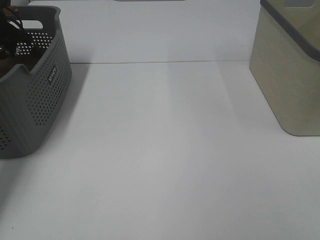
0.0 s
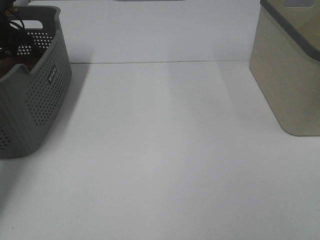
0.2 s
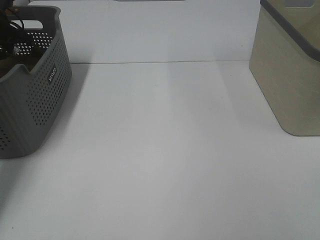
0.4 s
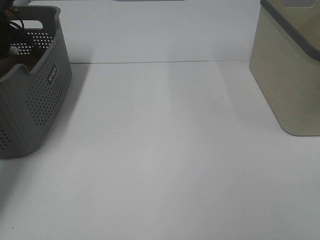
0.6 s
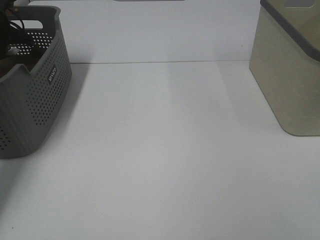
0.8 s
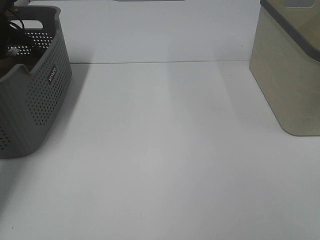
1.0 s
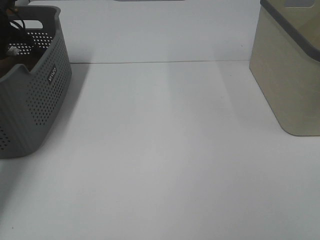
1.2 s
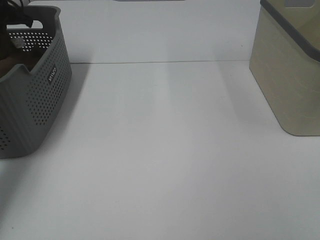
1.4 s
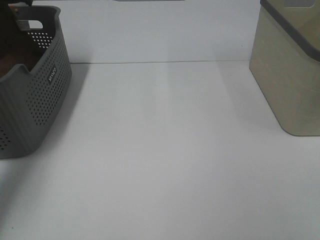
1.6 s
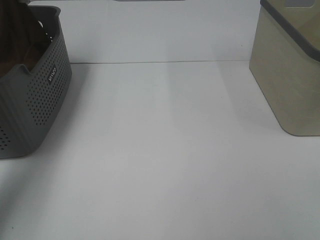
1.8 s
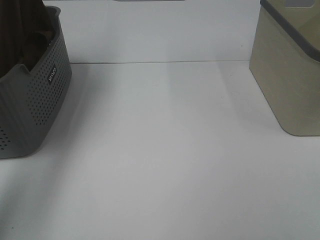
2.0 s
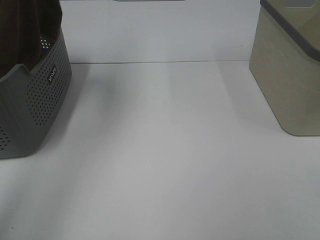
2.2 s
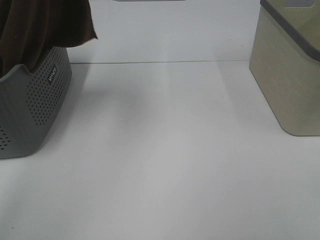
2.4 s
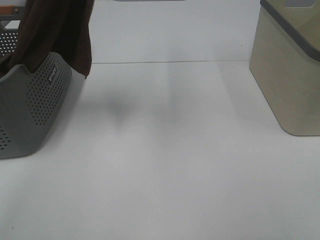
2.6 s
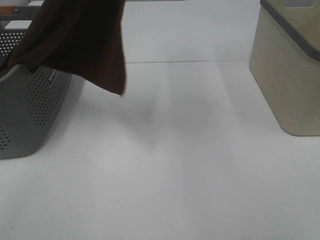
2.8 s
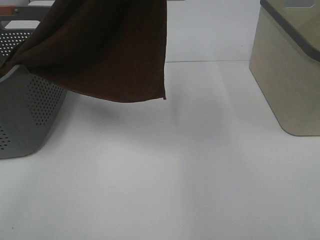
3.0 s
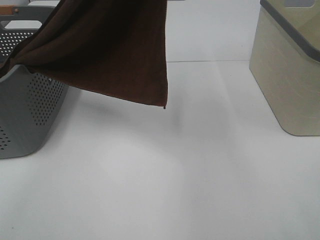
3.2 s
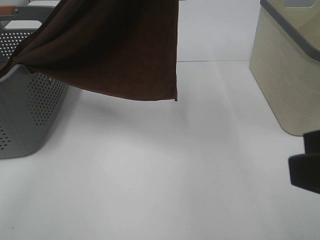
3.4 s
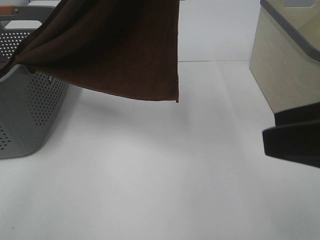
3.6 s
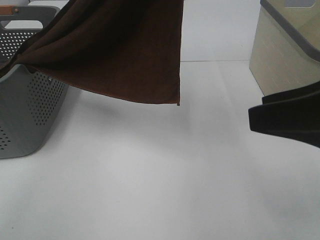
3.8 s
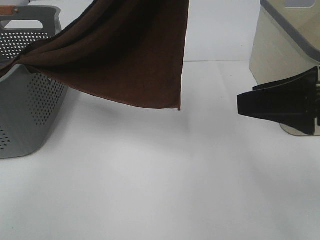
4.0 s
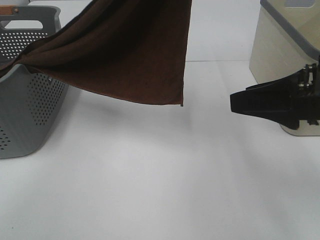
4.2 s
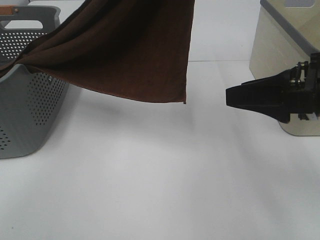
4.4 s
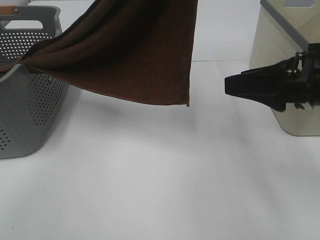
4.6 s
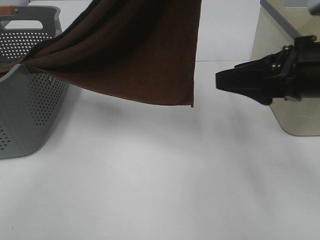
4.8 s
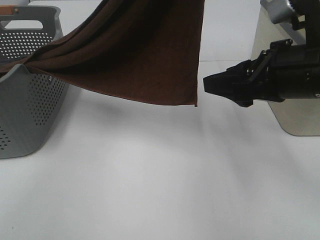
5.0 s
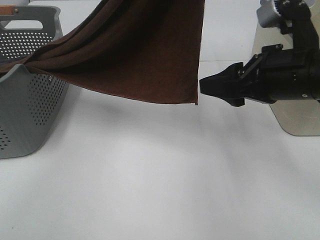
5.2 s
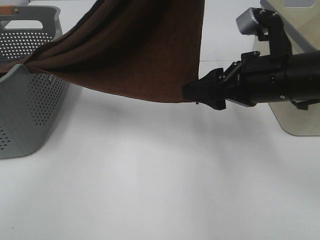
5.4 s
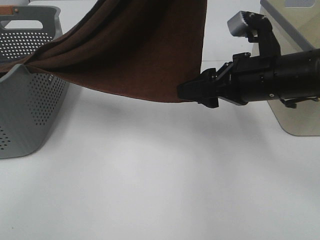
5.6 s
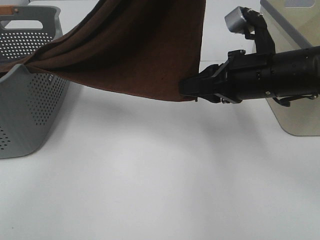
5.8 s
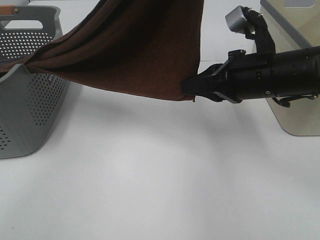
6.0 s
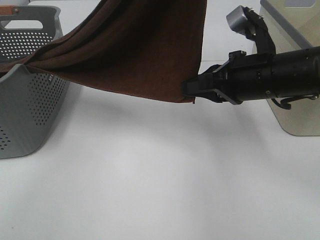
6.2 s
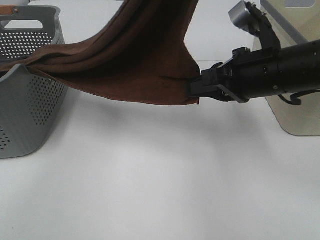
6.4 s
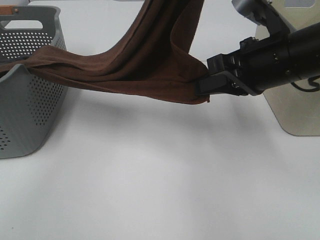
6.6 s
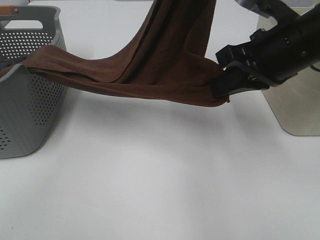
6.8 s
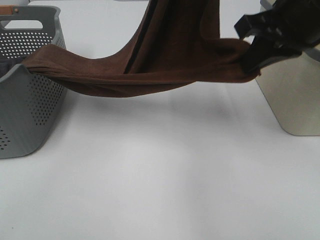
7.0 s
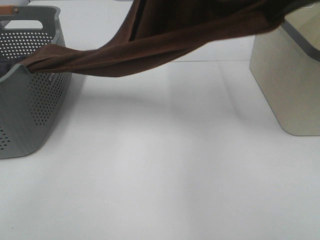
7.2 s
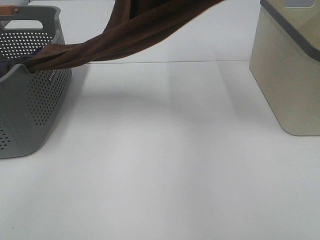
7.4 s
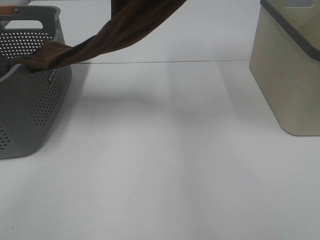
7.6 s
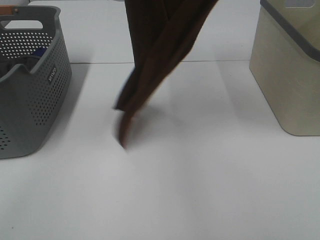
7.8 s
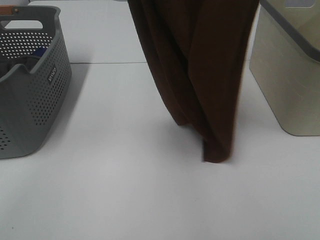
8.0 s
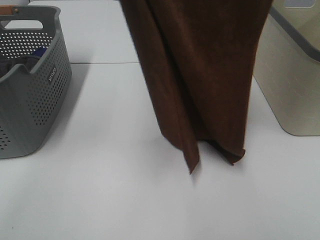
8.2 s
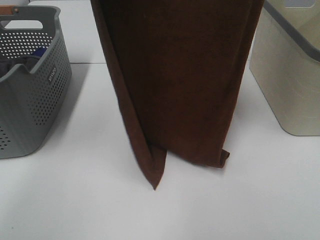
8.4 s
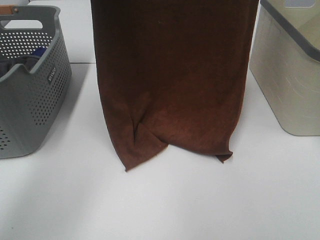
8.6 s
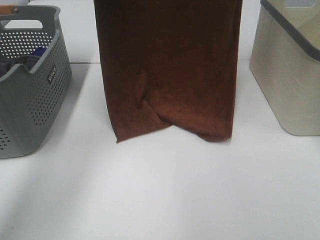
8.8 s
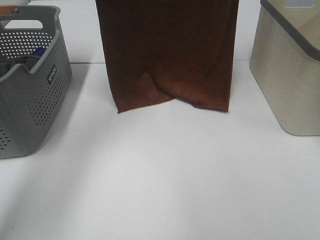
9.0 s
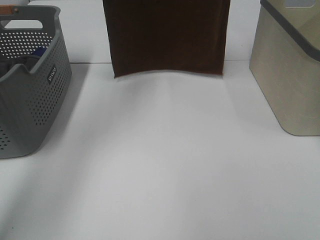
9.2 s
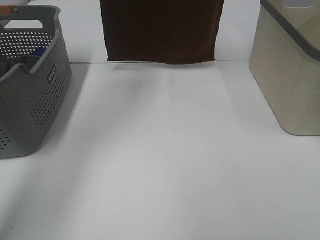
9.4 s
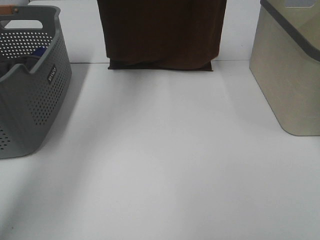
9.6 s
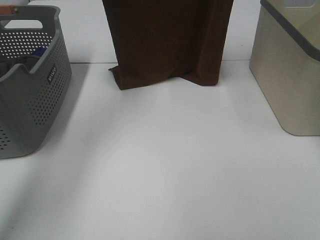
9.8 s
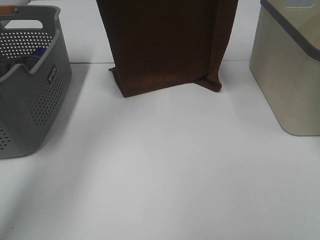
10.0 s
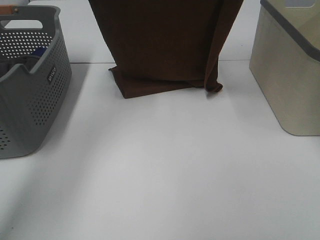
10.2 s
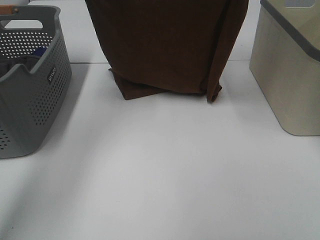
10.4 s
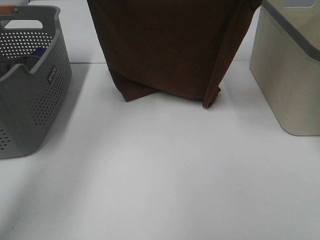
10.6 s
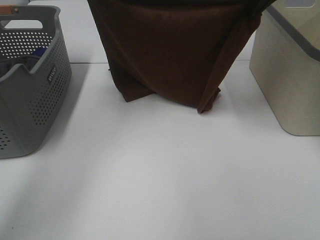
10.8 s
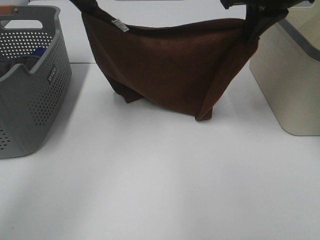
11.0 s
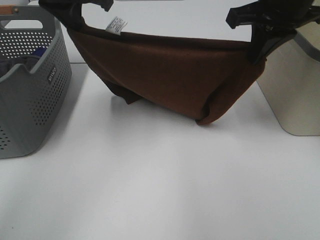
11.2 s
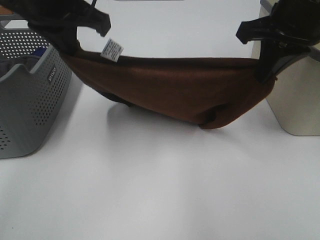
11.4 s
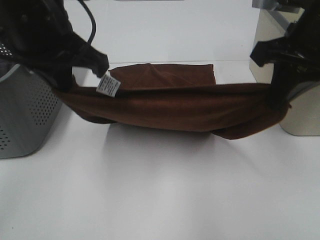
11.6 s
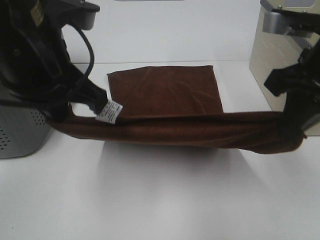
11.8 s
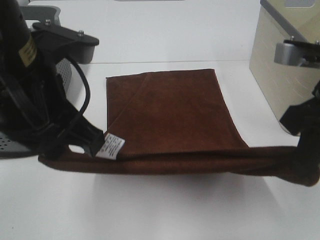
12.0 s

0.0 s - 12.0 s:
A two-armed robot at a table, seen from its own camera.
Task of the whole recording: Remove the towel and place it.
Step, 2.0 s - 5.4 s: Right hand: grab a corner of the brown towel and straighten it.
Step, 5.6 s - 9.4 s: Left hand: spread the brown towel flat on the table.
Step, 5.6 s - 9.4 s: Right hand: spread the brown towel flat on the table.
0.0 s - 1.6 s: The left gripper shifts some 10 cm upward, and closes its fingers.
1.6 s - 3.0 s: The left gripper heads to the right, backward and upward, covering some 40 cm.
3.0 s - 4.4 s: The right gripper goes roughly 20 cm forward.
4.4 s - 6.0 s: The right gripper heads forward and to the left, covering some 10 cm, and closes.
6.0 s - 7.6 s: The left gripper is displaced upward and to the left by roughly 10 cm. Meanwhile the right gripper moves upward, some 30 cm.
7.6 s - 9.0 s: The right gripper goes about 15 cm forward, while the left gripper is displaced forward, to the left and downward by some 25 cm.
9.0 s - 10.4 s: Both grippers travel together downward, about 10 cm.
10.4 s - 12.0 s: The right gripper shifts roughly 25 cm backward and downward. Meanwhile the left gripper shifts some 25 cm backward.

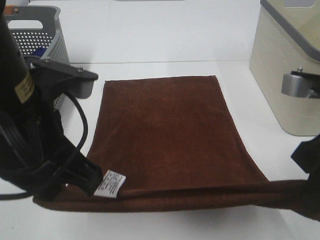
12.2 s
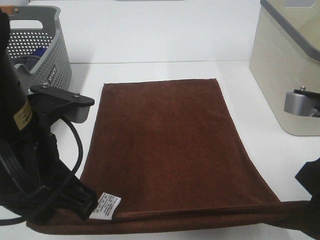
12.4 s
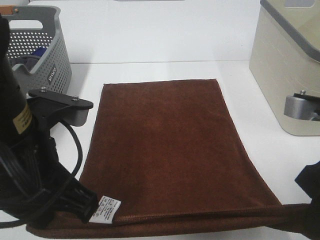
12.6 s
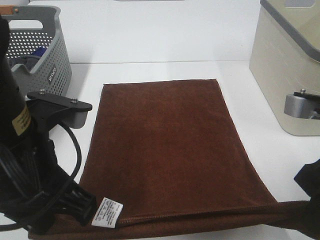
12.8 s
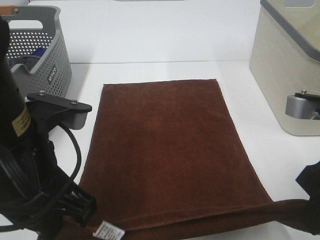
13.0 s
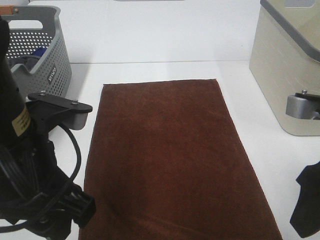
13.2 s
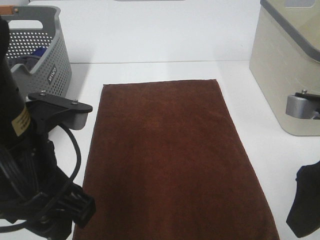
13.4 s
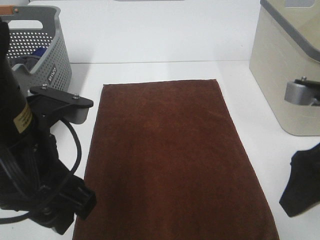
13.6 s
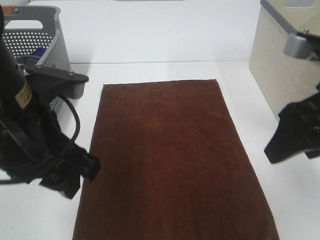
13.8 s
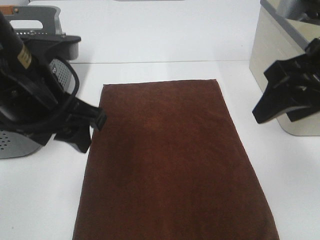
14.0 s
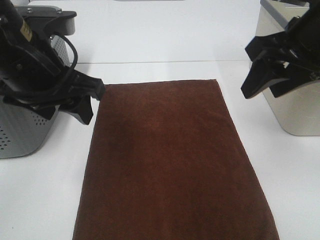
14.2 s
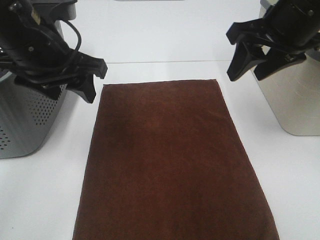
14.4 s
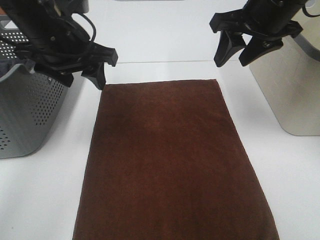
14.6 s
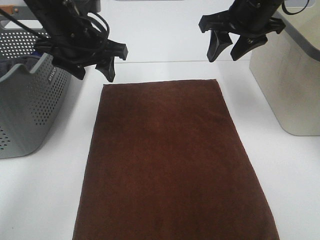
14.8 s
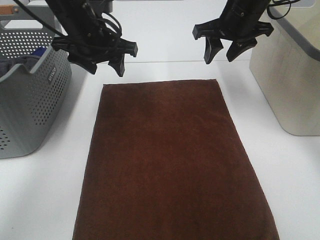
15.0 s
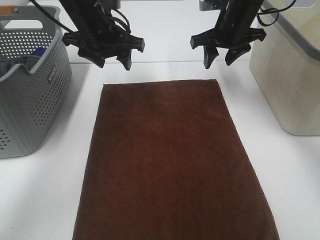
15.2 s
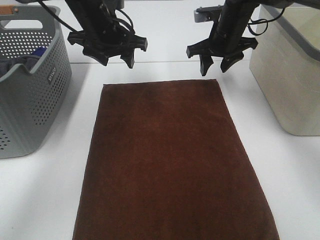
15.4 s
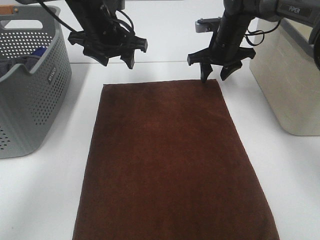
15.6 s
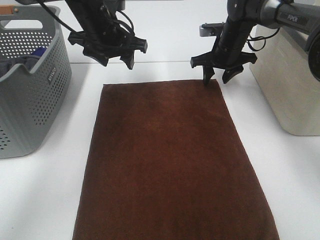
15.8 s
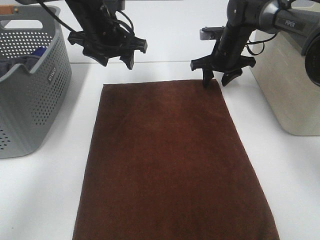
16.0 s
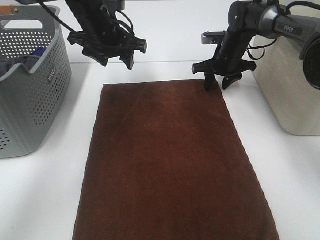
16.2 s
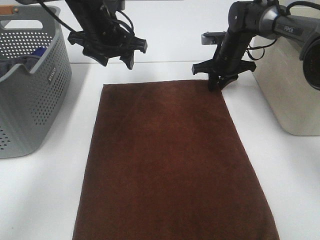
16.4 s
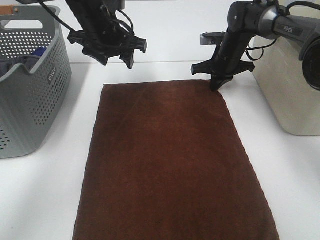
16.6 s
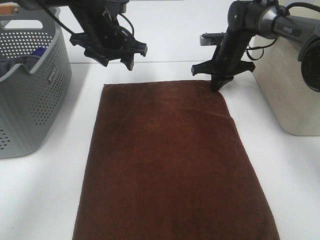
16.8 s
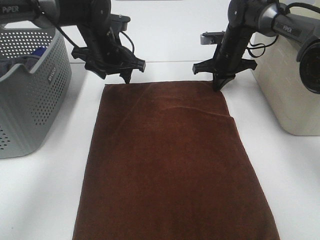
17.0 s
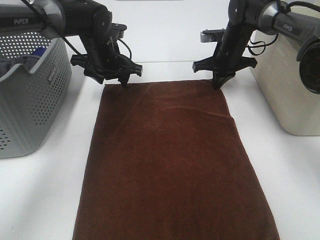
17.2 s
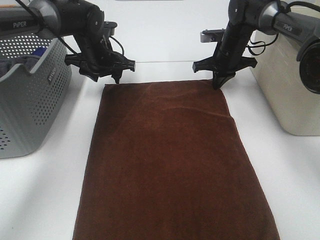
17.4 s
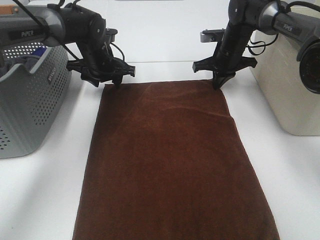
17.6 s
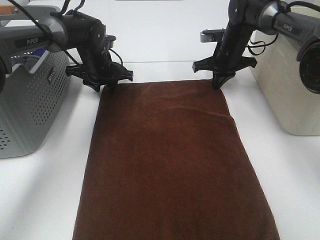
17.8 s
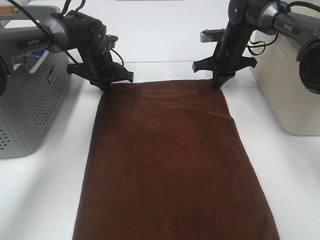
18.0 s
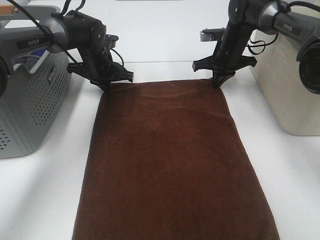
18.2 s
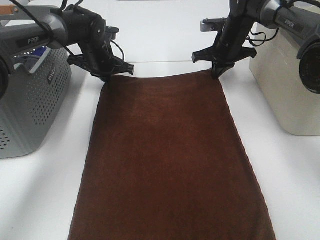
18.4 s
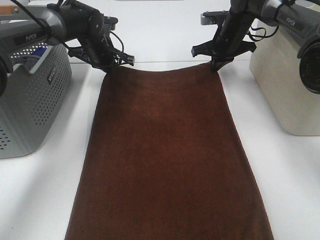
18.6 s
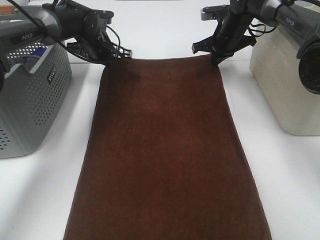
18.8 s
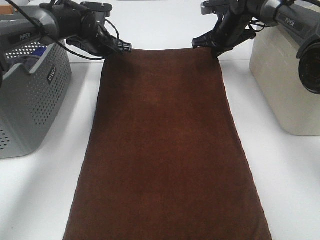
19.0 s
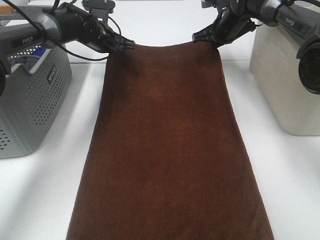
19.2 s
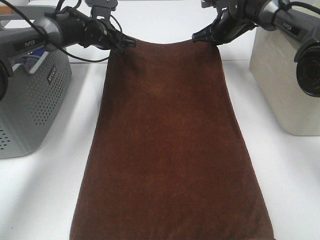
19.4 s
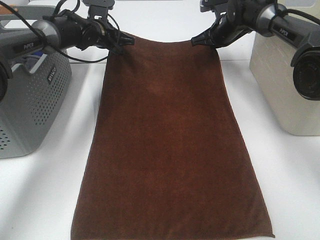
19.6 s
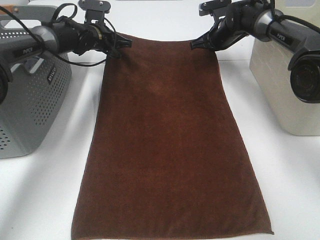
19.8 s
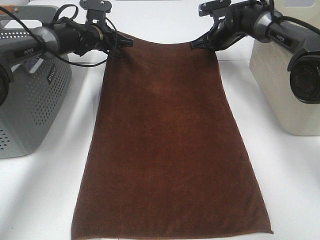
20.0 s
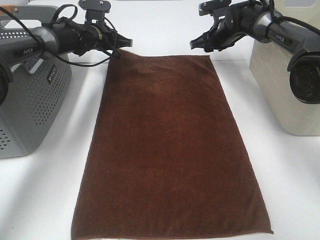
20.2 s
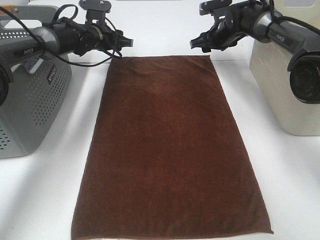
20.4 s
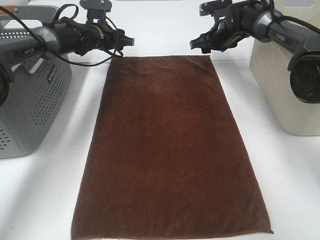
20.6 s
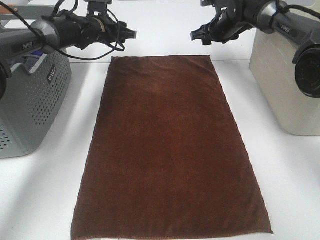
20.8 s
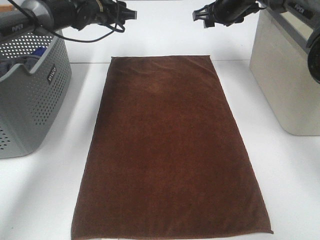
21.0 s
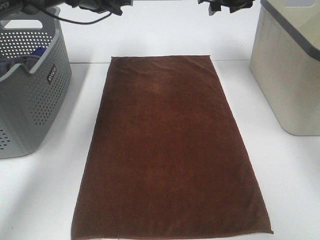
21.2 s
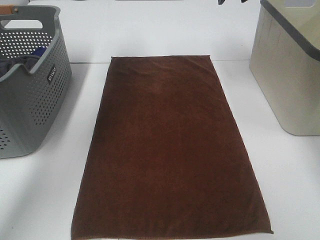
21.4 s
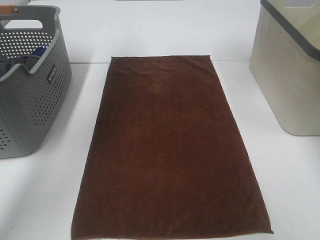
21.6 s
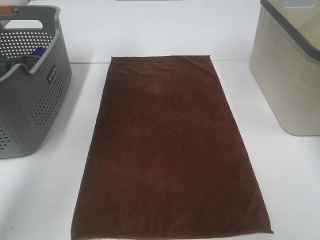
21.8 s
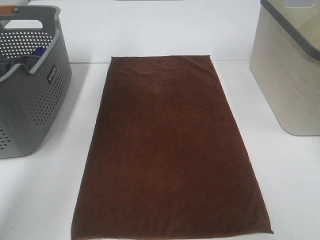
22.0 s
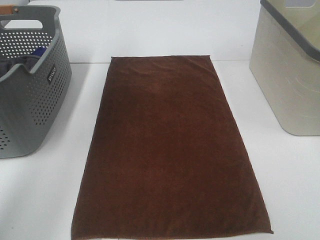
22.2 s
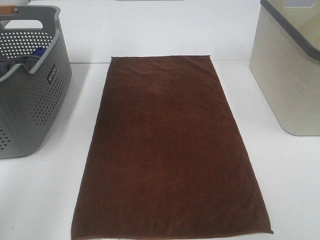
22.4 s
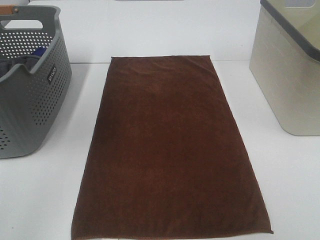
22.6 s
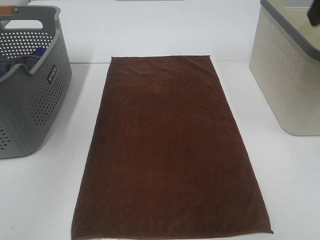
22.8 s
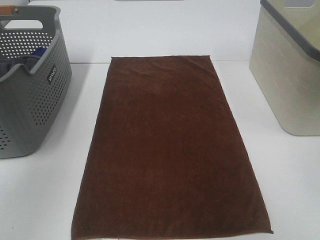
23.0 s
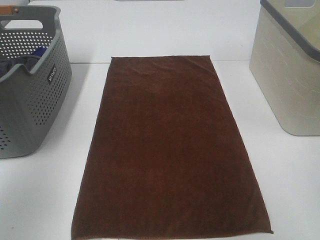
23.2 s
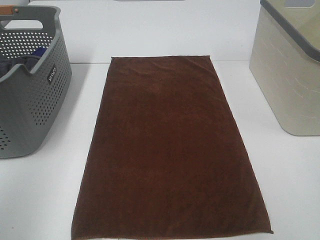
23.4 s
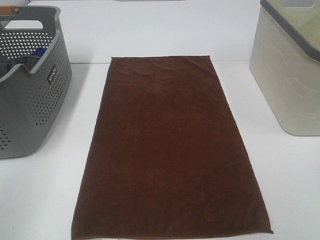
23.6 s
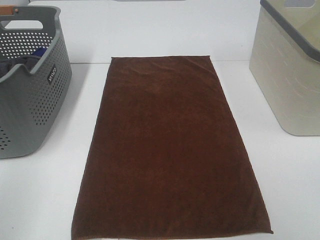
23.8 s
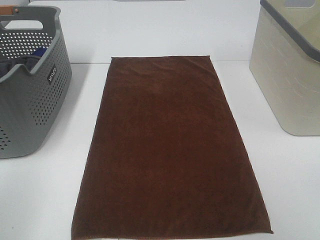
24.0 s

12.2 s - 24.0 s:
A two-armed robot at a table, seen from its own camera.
Task of the whole recording: Remove the towel and place it.
Step, 12.2 s - 14.8 s: Left hand:adjust the brown towel.
Step, 12.2 s - 14.8 s: Right hand:adjust the brown towel.
12.2 s - 13.6 s: The right gripper opens up. Meanwhile the left gripper opens up.
13.6 s - 15.2 s: Both grippers move forward, some 30 cm.
15.2 s - 16.6 s: The right gripper travels downward by some 10 cm, and closes its fingers.
16.6 s - 18.2 s: The left gripper heads downward and forward, covering approximately 10 cm, and closes.
18.2 s - 19.6 s: The right gripper ends up some 5 cm from where it was, while the left gripper goes approximately 5 cm forward.
19.6 s - 21.0 s: The two grippers go some 5 cm upward. The left gripper opens up. The right gripper opens up.
21.0 s - 22.6 s: The two grippers go approximately 35 cm backward and upward.
22.6 s - 24.0 s: The left gripper heads backward and downward, covering approximately 30 cm.
